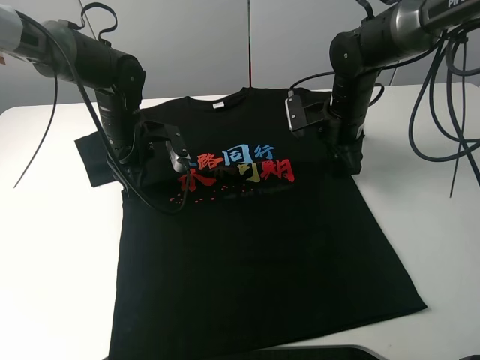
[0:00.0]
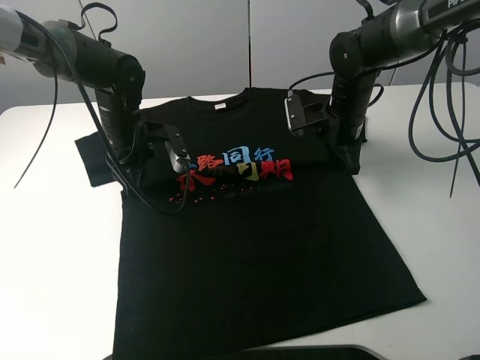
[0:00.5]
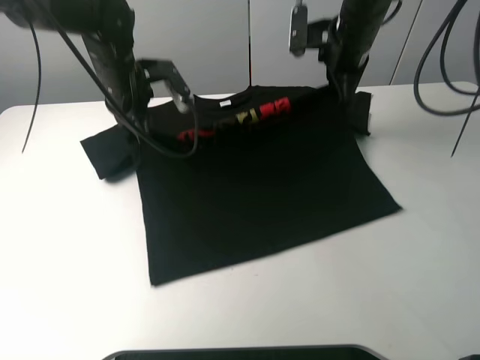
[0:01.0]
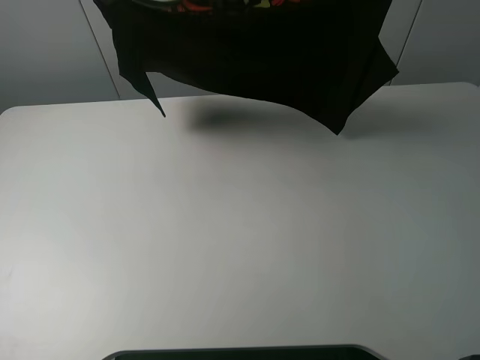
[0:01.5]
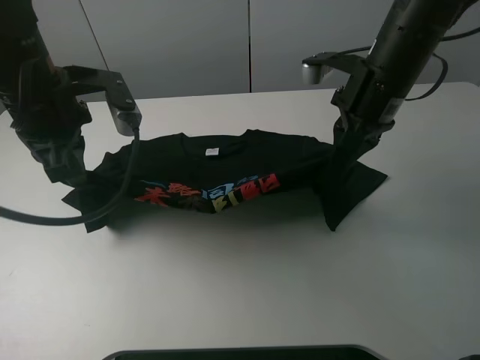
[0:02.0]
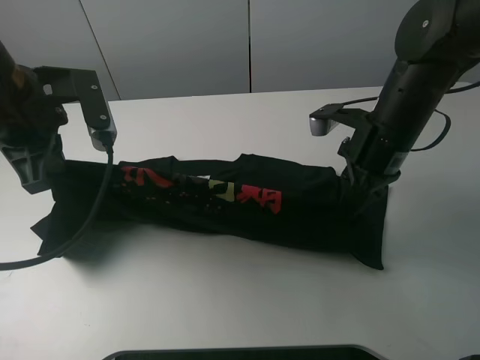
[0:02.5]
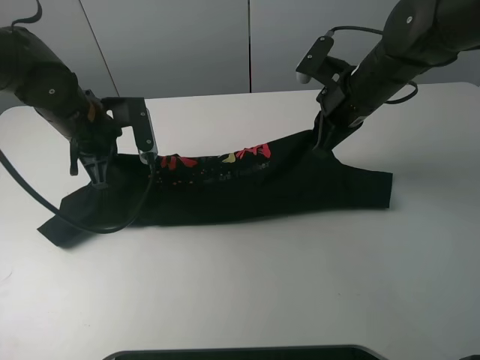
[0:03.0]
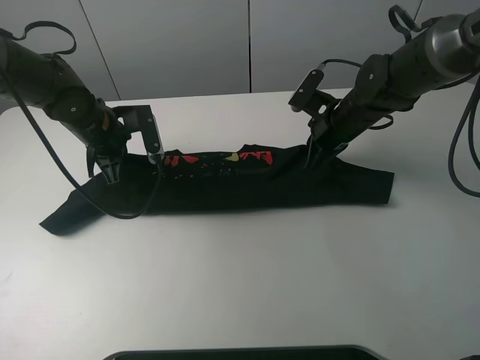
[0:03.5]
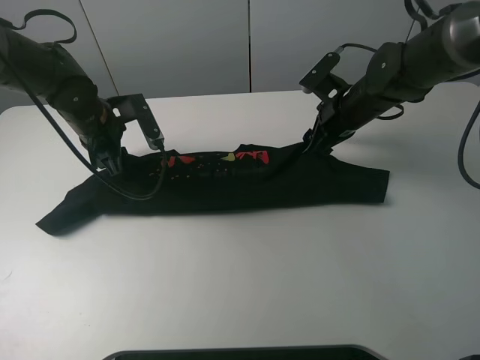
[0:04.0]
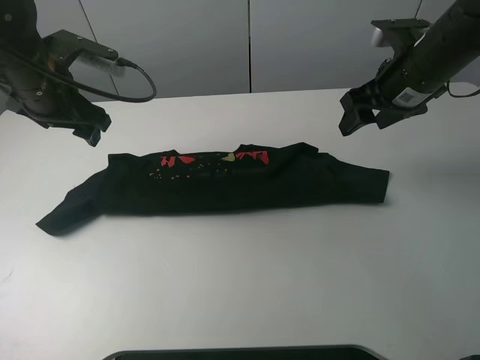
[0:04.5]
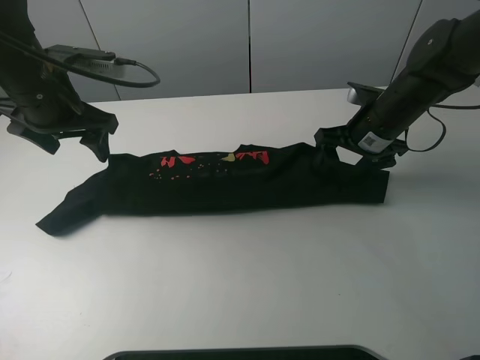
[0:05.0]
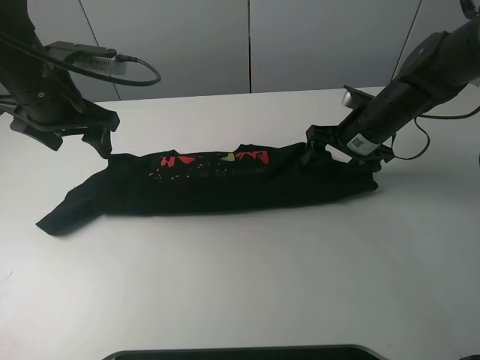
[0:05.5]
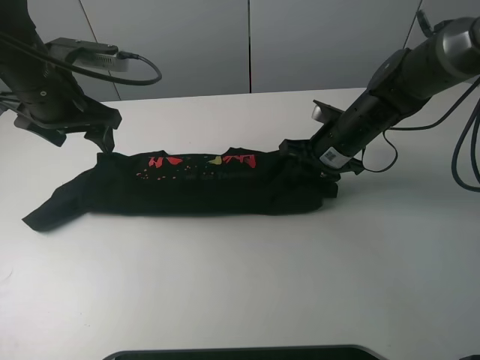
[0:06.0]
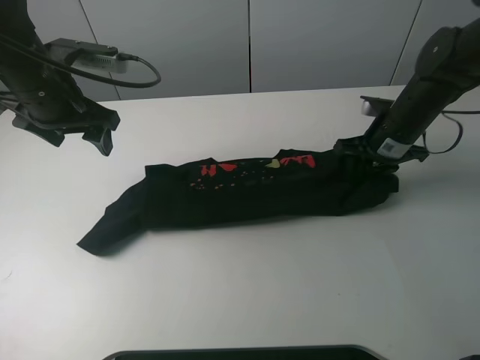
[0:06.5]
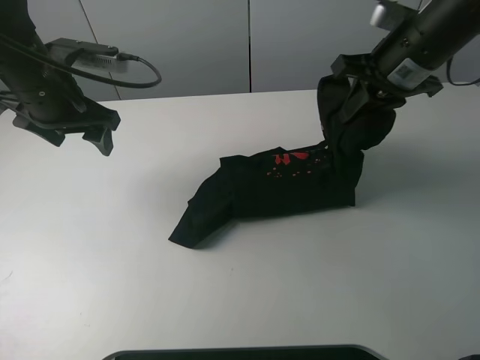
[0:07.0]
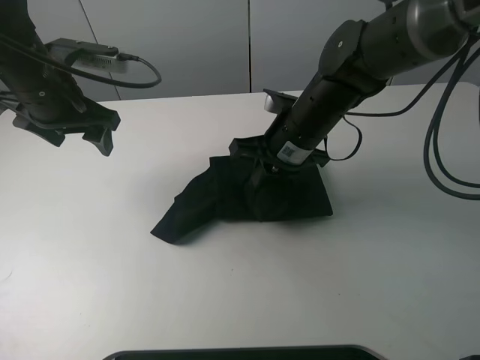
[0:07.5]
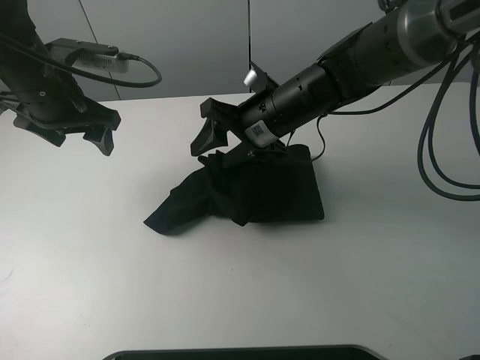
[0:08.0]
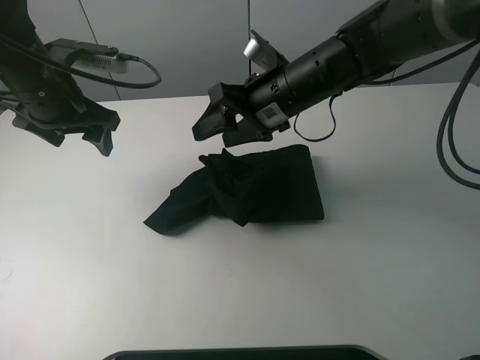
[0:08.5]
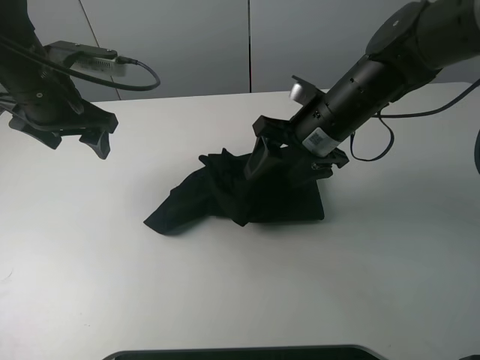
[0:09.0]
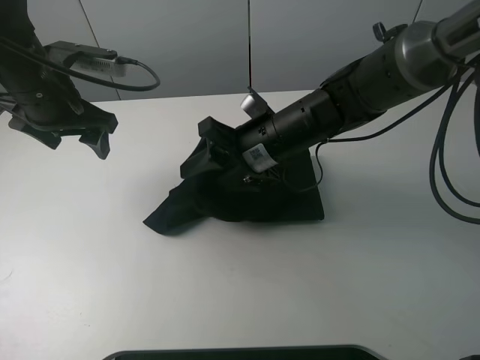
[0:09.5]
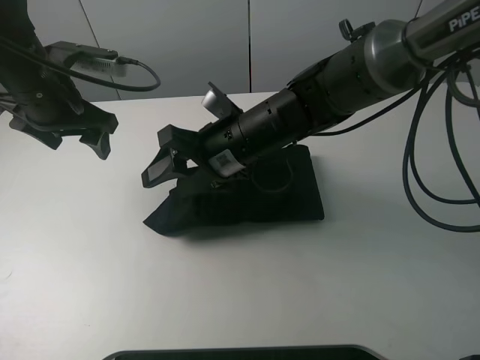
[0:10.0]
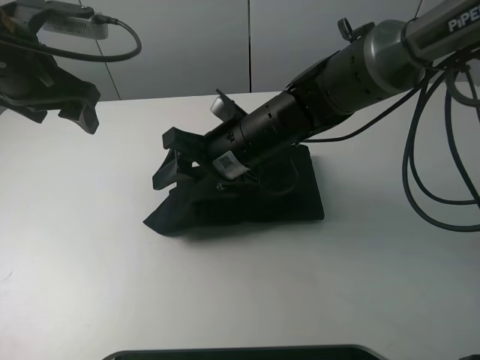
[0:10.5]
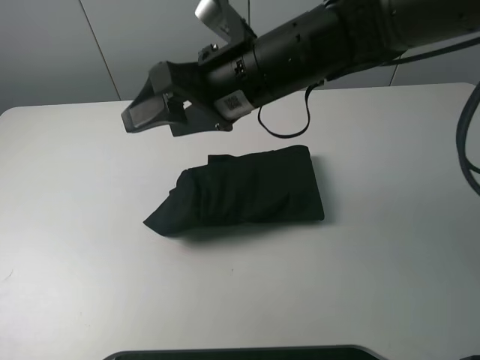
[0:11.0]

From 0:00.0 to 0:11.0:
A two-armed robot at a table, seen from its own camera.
Task of the whole recording: fold the clothes on the table.
Step, from 0:00.0 to 0:04.0: Fold the black T-shirt downward with the left gripper.
Step, from 0:04.5 to 0:06.0: Grasp the black T-shirt with the right gripper.
Step, from 0:06.5 to 0:10.5: Fold the black T-shirt from right to left with right gripper.
From 0:00.0 to 0:02.0: Both grippers travel together upward and backward, approximately 15 cm. The right gripper closes its fingers.
From 0:02.0 to 0:03.5: Both grippers move downward and forward, roughly 15 cm.
From 0:03.5 to 0:05.5: The left gripper travels upward by roughly 10 cm, and opens up; the right gripper goes upward and returns, some 10 cm each way, and opens.
From 0:05.5 to 0:07.5: The right gripper moves left and right over about 15 cm, changing direction 2 times, and closes.
From 0:07.5 to 0:09.0: The right gripper opens up.
From 0:09.0 to 0:11.0: The right gripper shifts some 15 cm upward and to the left. The left gripper travels upward, backward and to the left by about 30 cm.
